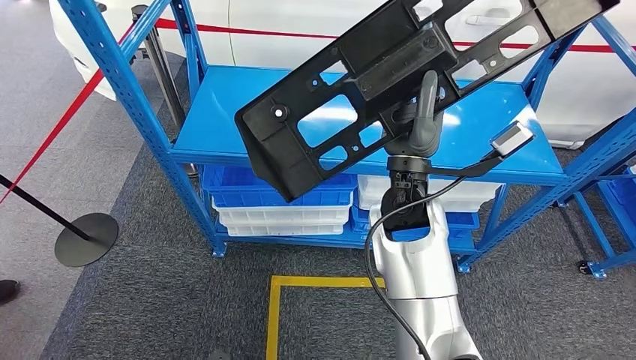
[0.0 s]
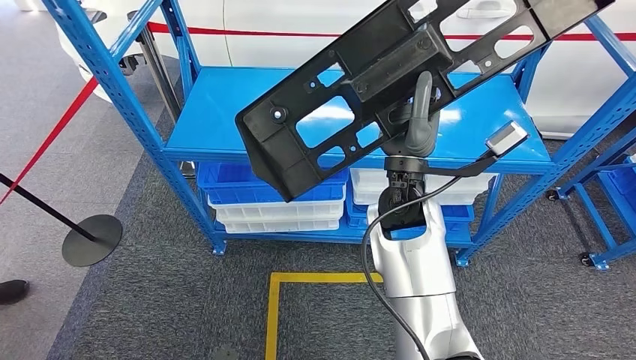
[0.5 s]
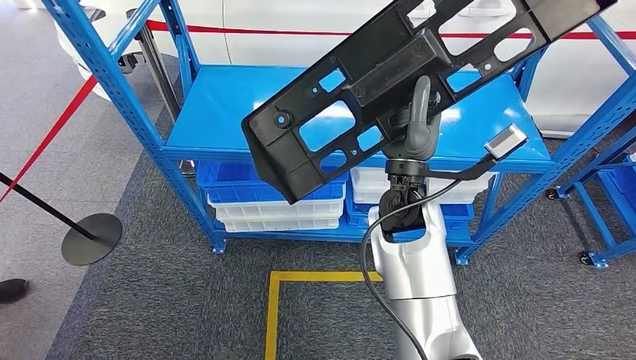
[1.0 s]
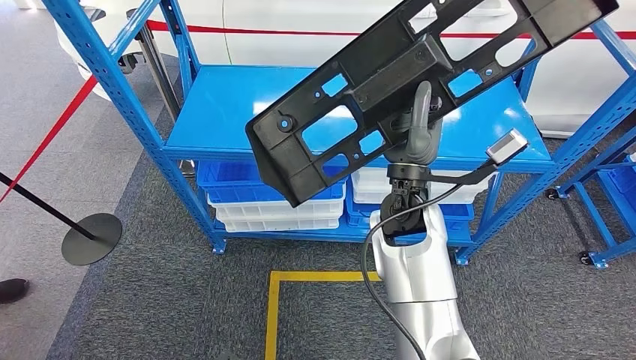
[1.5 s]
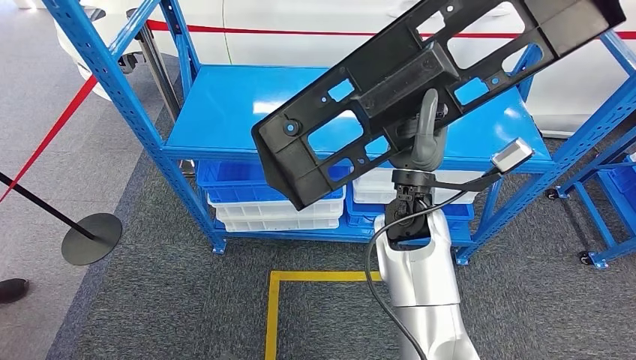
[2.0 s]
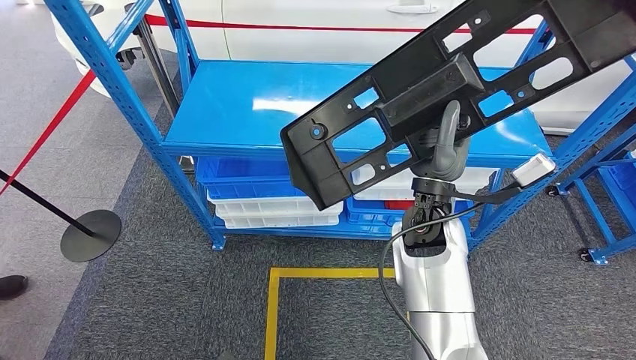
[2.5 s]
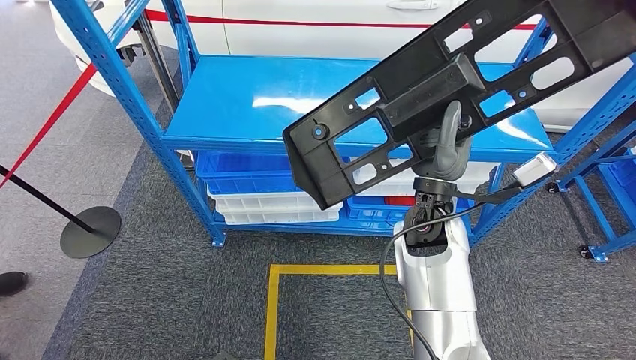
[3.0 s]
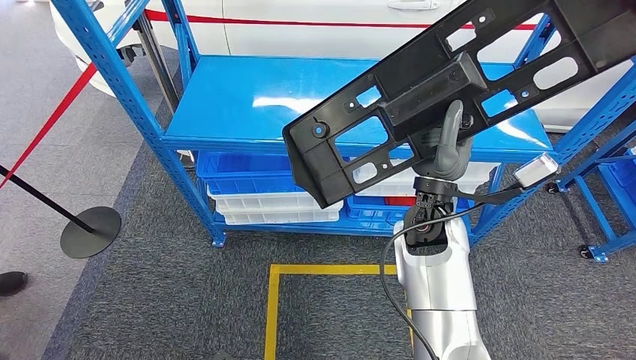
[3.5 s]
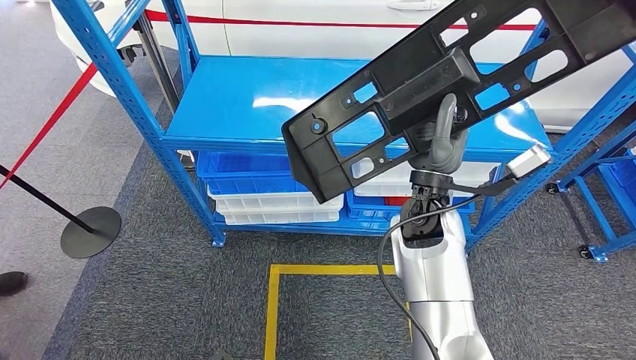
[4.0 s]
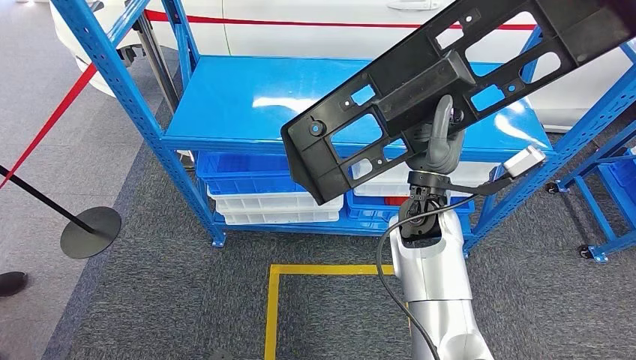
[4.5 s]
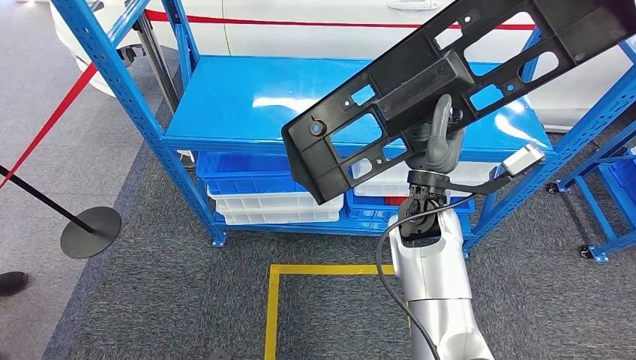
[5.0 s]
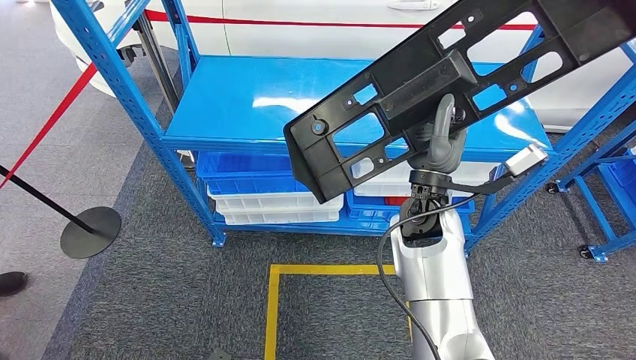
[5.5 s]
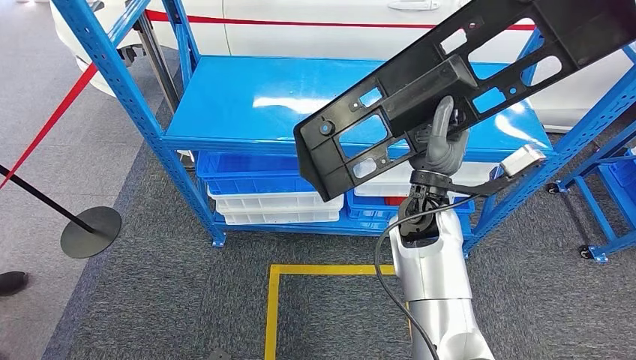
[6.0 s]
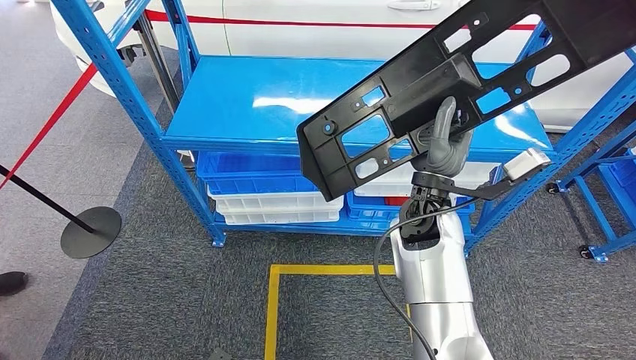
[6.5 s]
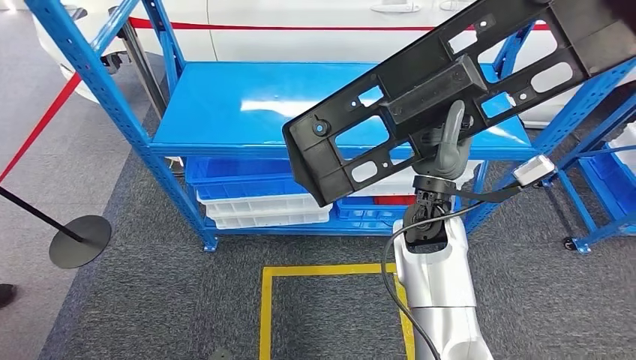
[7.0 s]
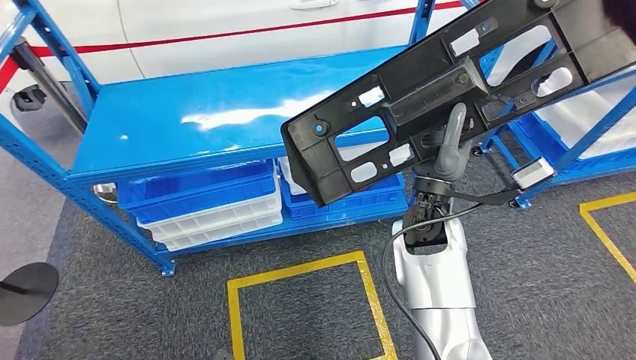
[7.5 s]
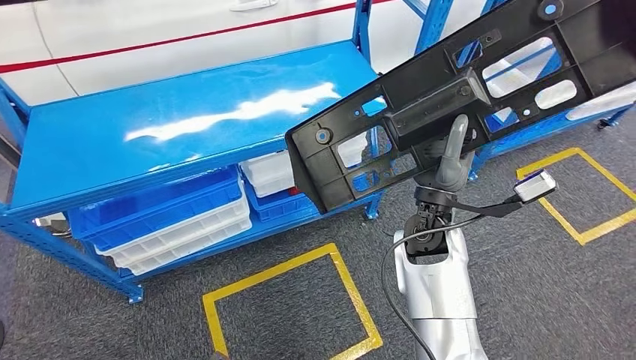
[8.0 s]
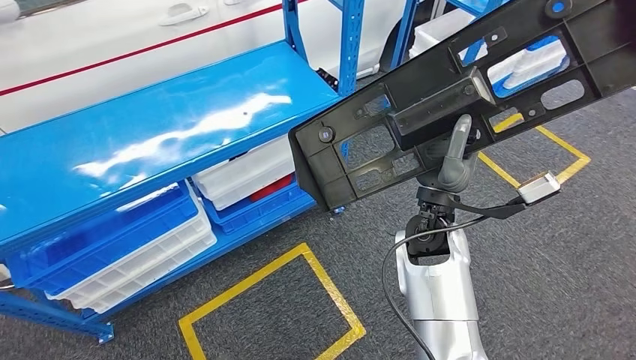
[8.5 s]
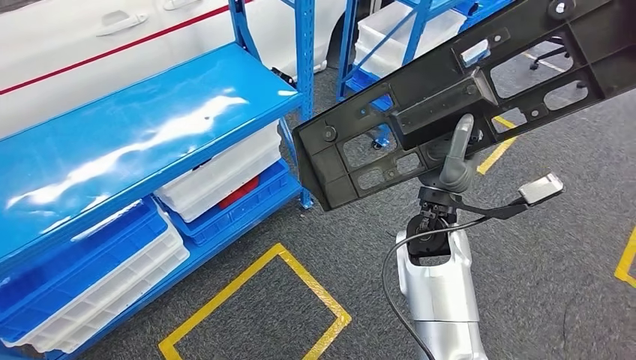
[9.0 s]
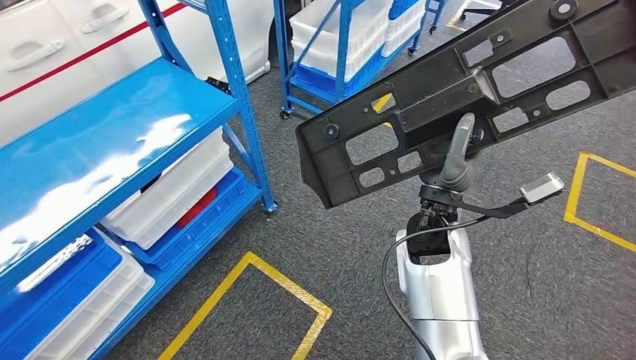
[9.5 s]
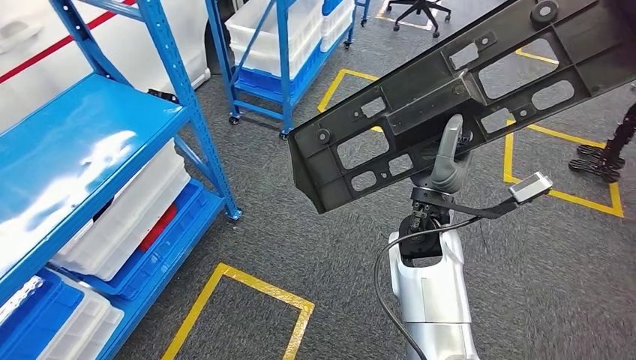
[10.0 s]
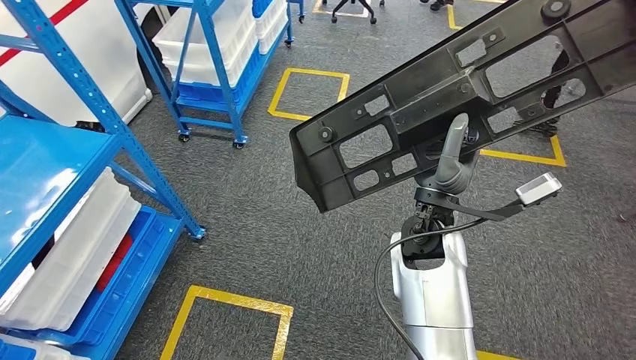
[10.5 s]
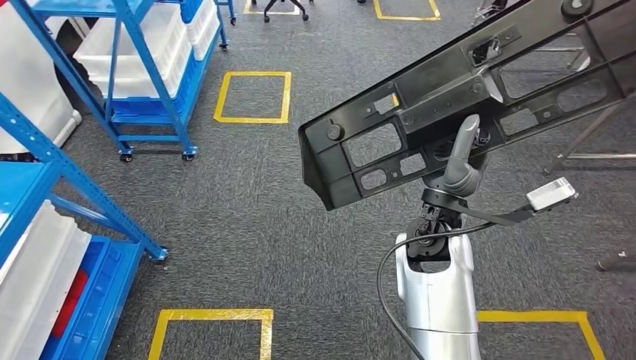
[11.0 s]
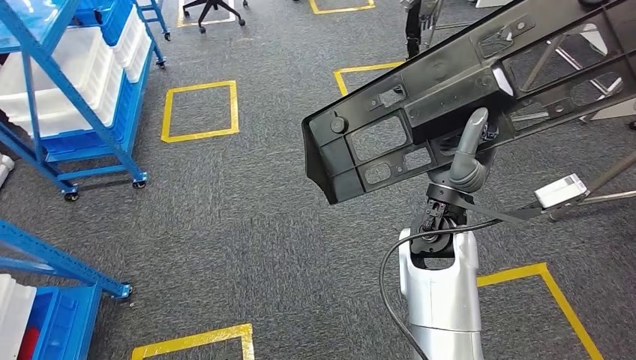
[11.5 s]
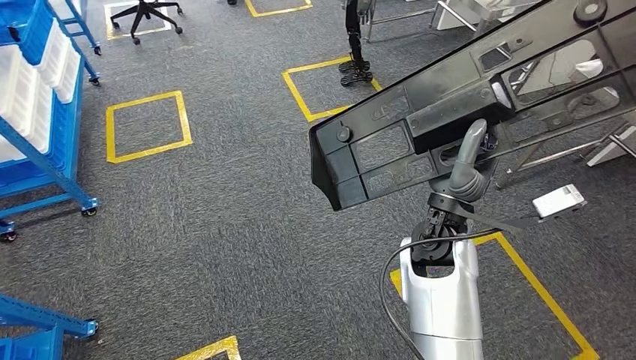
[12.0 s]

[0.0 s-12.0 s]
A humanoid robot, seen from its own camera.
4.0 to 6.0 s: The hands make only small movements.

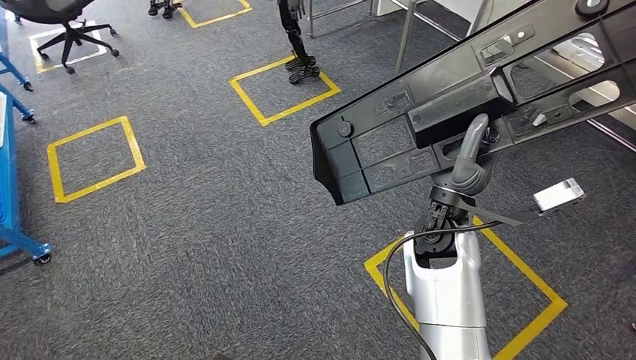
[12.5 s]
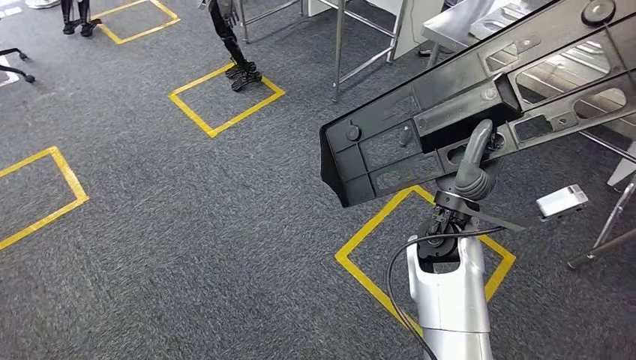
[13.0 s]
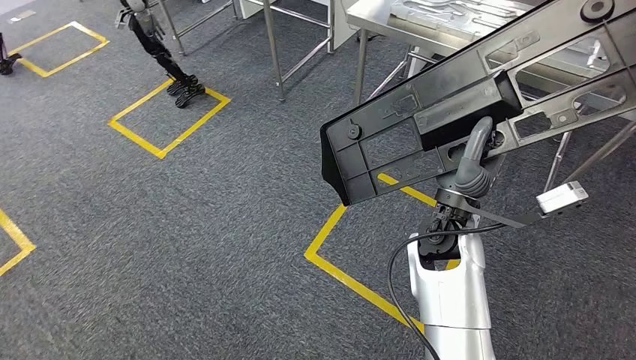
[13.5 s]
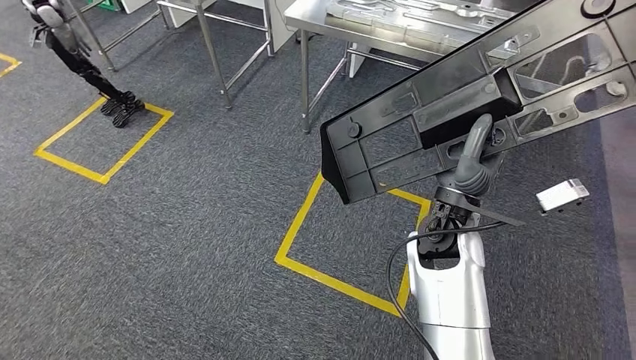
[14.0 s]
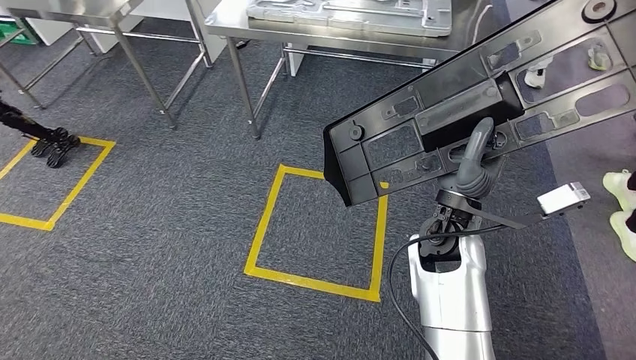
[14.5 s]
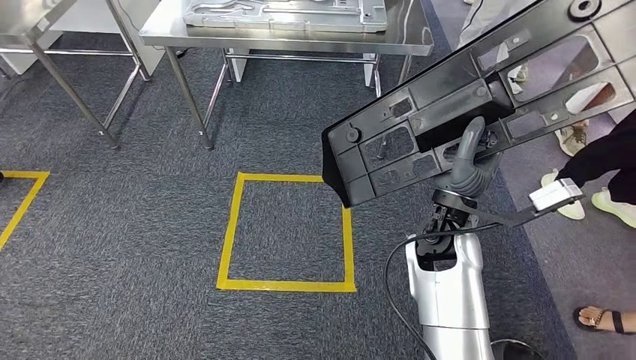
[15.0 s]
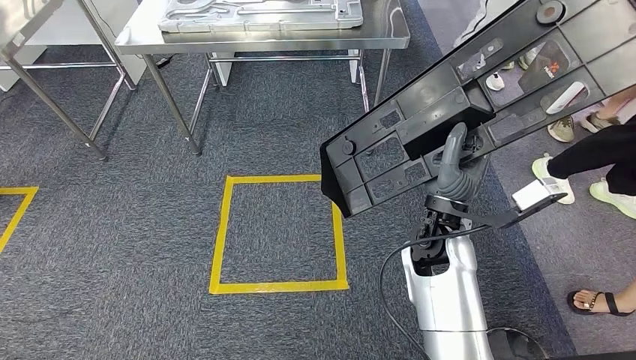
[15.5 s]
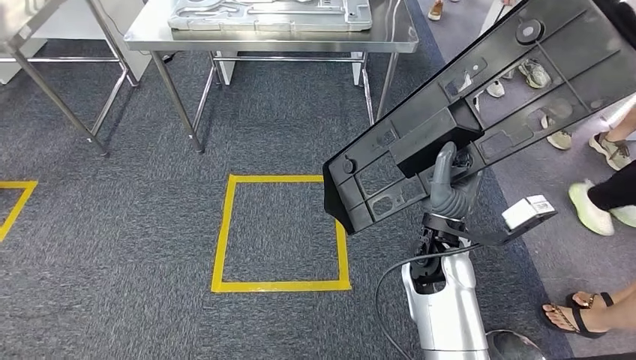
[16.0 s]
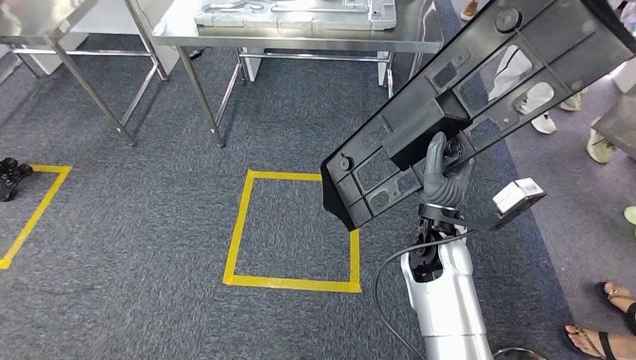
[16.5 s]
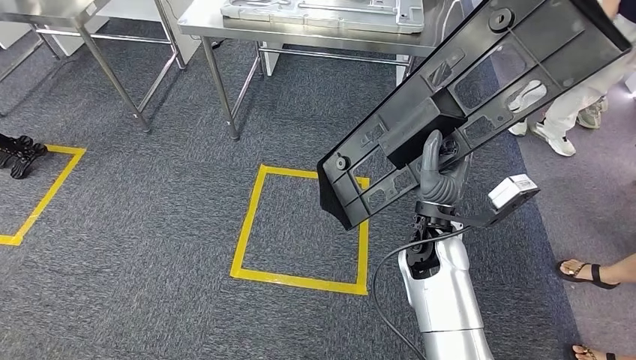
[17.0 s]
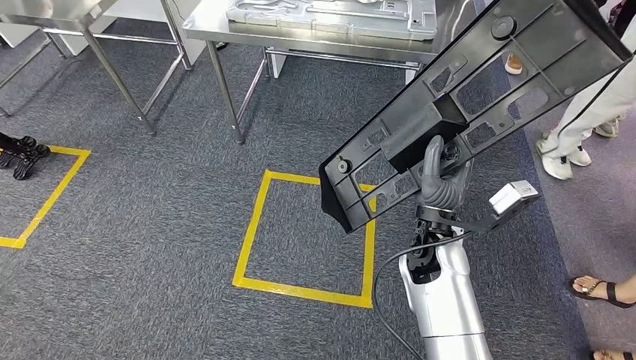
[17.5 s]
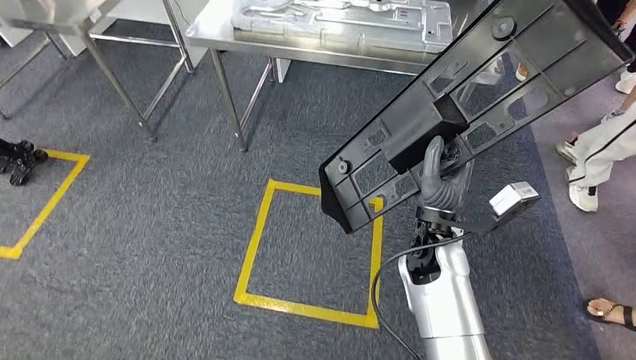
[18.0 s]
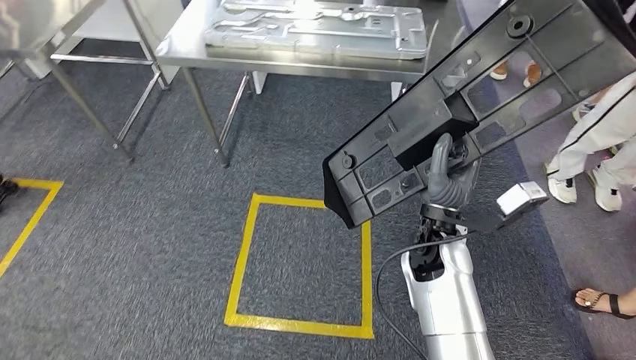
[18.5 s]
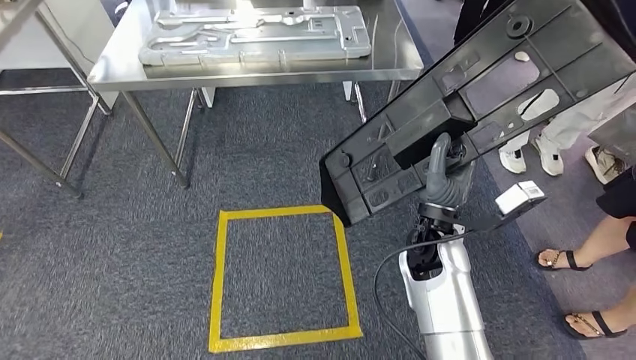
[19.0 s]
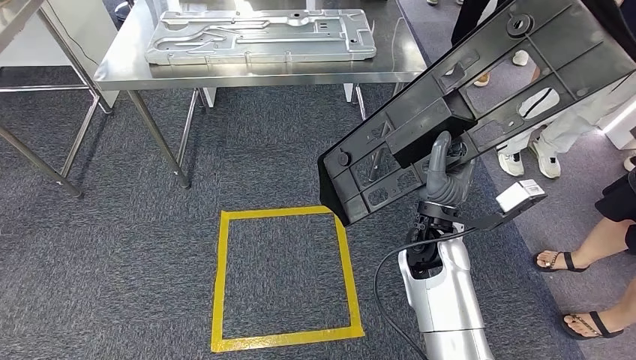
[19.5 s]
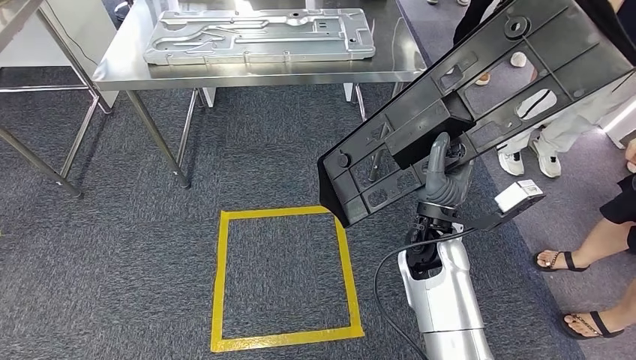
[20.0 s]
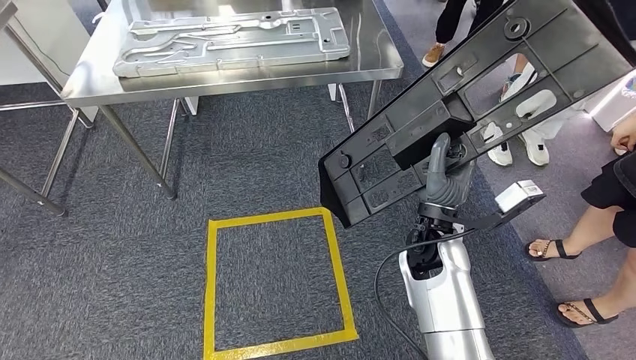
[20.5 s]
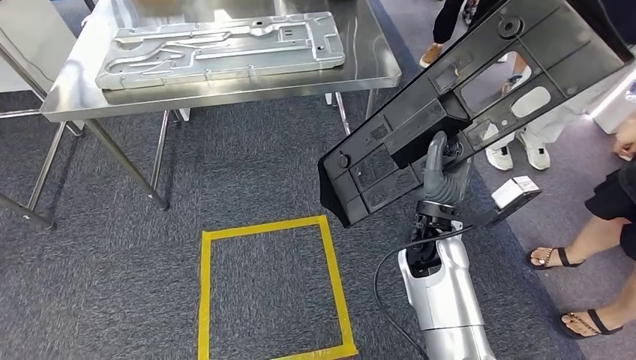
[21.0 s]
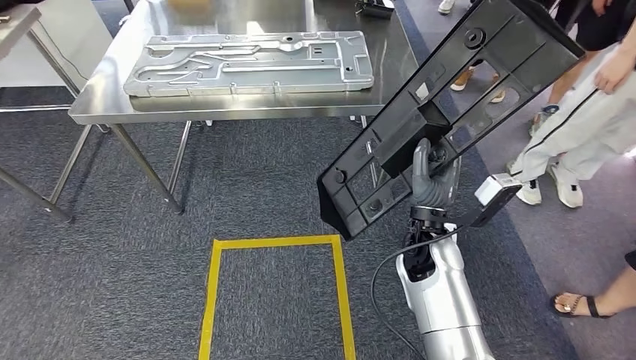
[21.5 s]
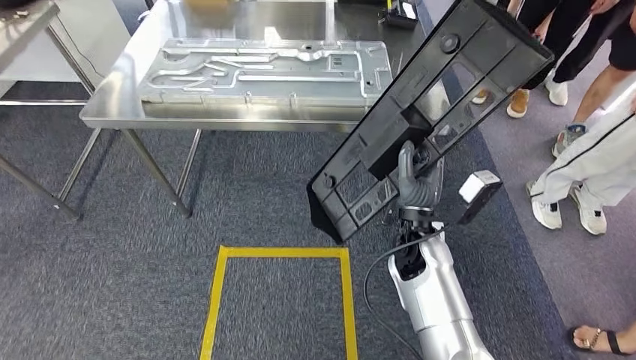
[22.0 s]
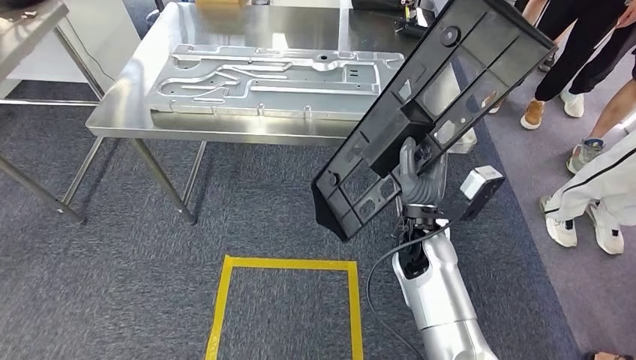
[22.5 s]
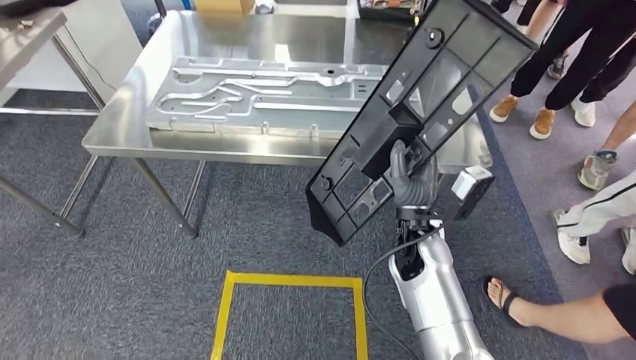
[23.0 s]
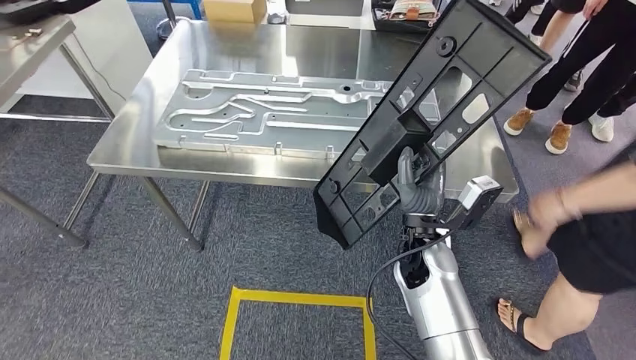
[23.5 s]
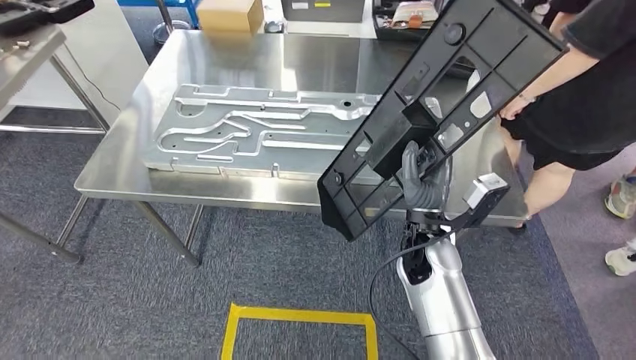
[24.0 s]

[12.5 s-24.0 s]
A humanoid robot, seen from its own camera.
Step, 12.5 to 23.5 s: Move the large material to the workbench.
